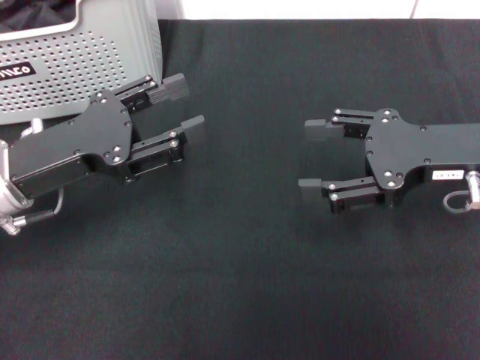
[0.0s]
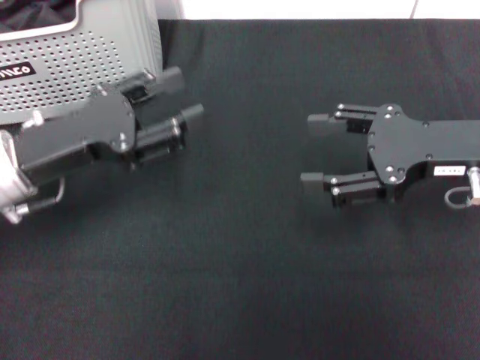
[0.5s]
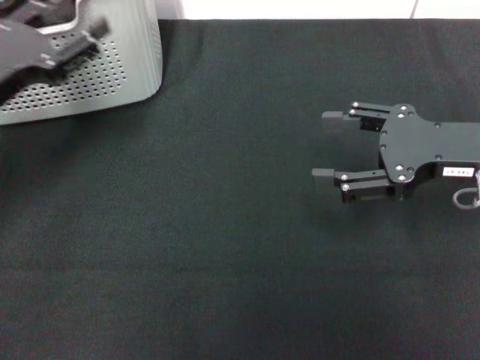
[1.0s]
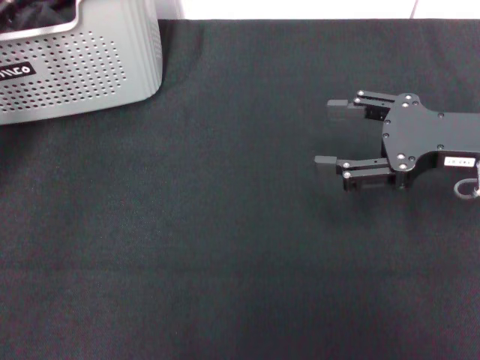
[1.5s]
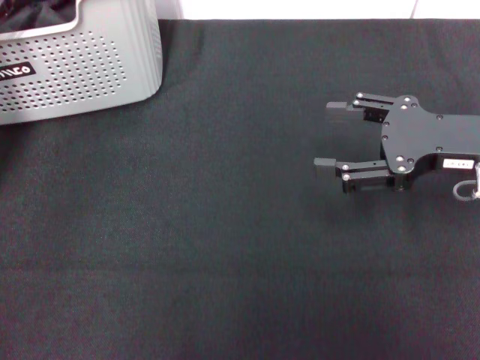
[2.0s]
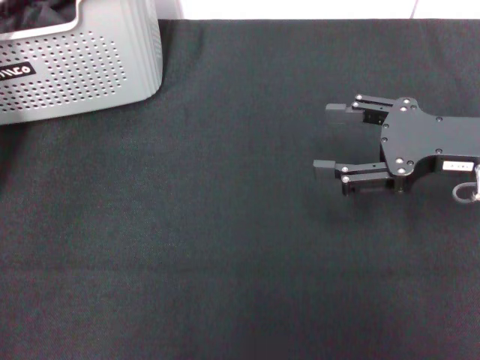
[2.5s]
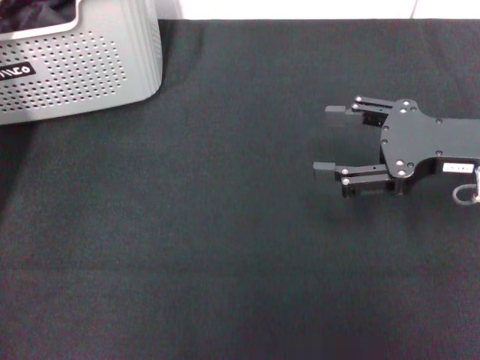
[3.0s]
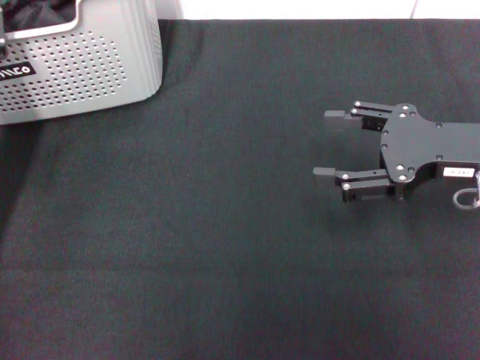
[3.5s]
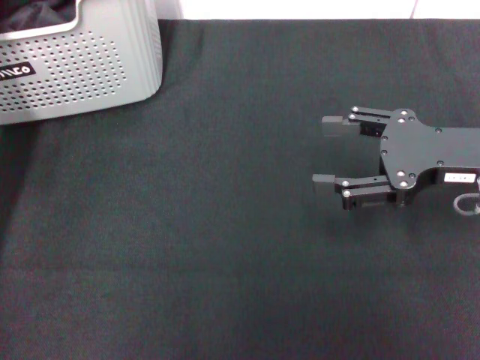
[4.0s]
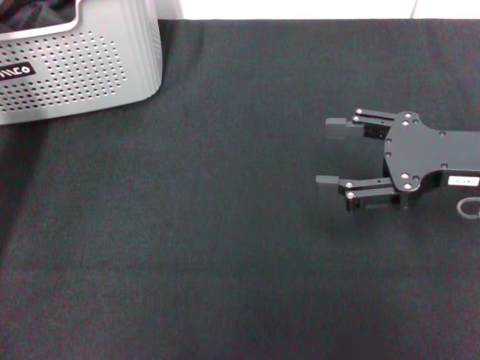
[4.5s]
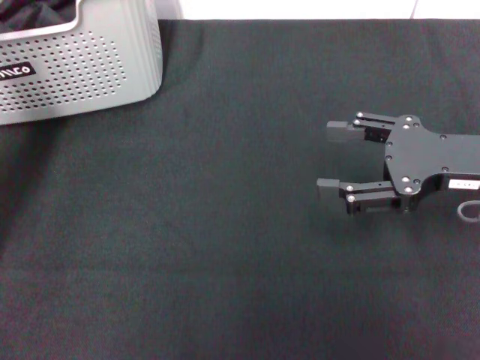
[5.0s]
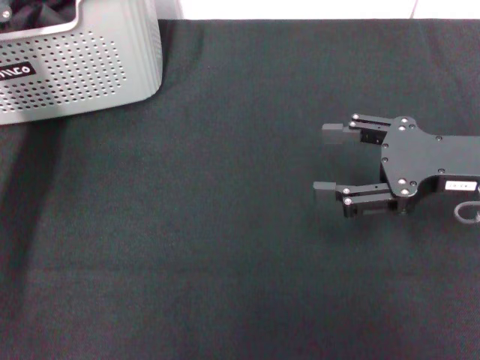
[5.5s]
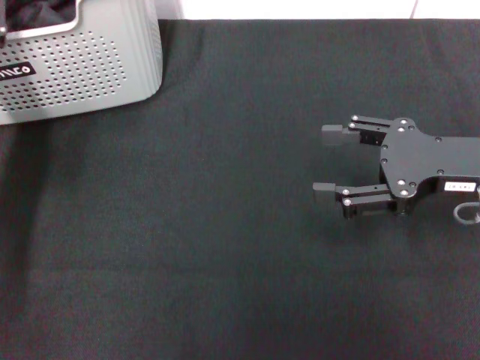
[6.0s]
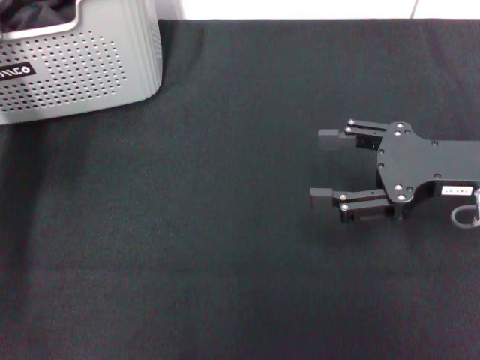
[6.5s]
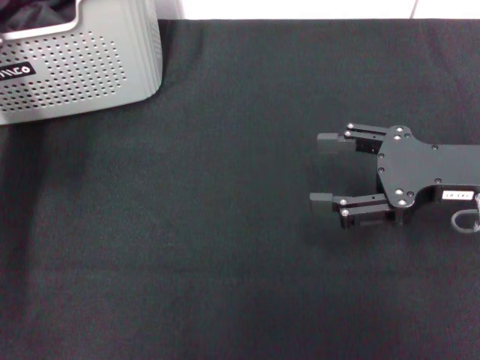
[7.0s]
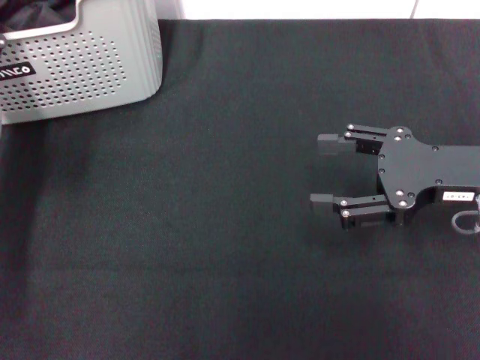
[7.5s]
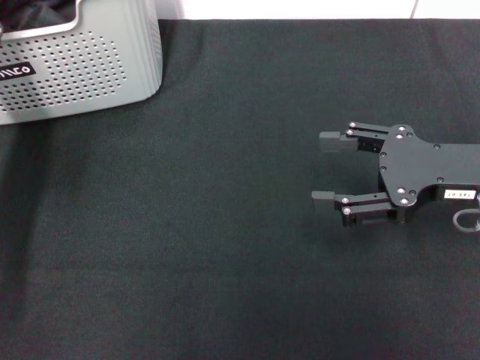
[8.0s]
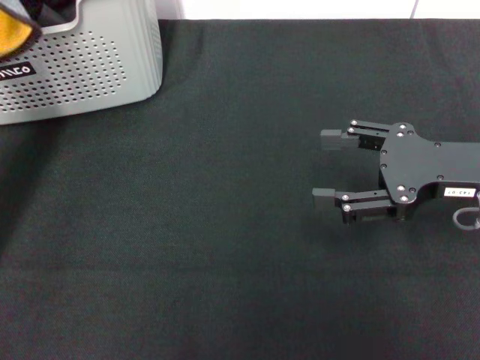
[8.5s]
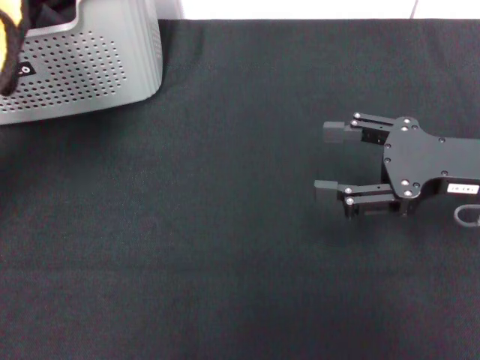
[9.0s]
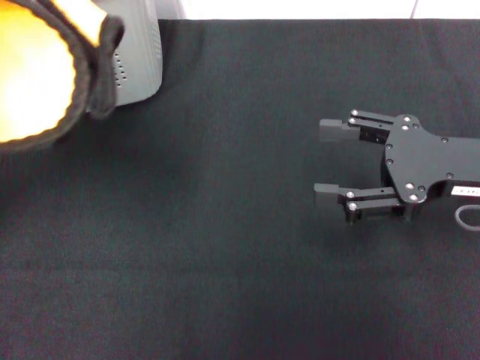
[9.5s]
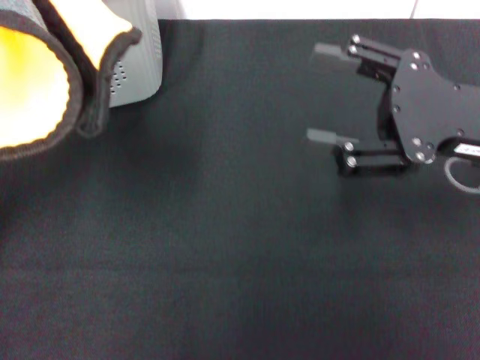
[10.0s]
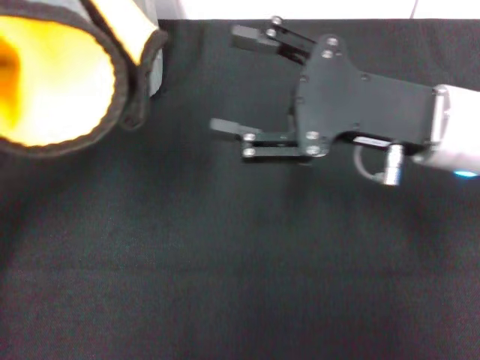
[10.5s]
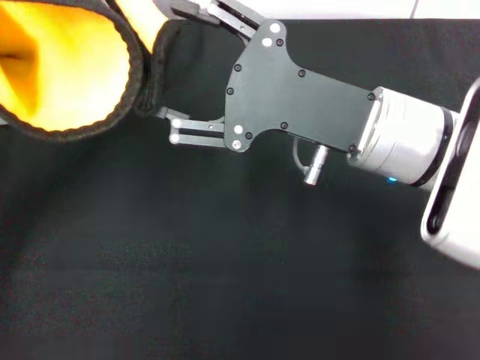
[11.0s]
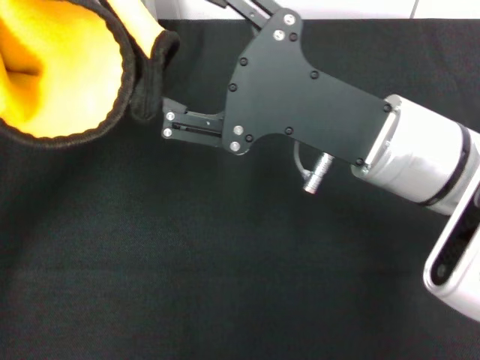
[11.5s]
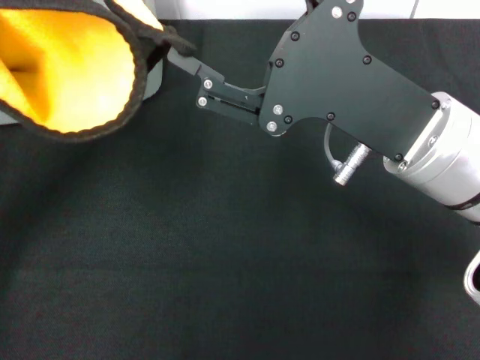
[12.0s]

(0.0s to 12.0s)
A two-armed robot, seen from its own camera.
Task of the whole recording: pick up the towel from the storage box and lay it flat on the black tablecloth.
Step, 0.0s - 7.5s: Pick up a towel with the left gripper.
0.0s - 2.0s: The left gripper heads to the left and forward, covering approximately 10 cm.
2.0s - 4.0s: The left gripper closes.
4.0s - 6.0s: The left gripper opens.
8.0s - 10.0s: The left gripper moves upward and backward, about 15 cm.
10.0s - 12.0s: The right gripper shifts approximately 10 cm to the left.

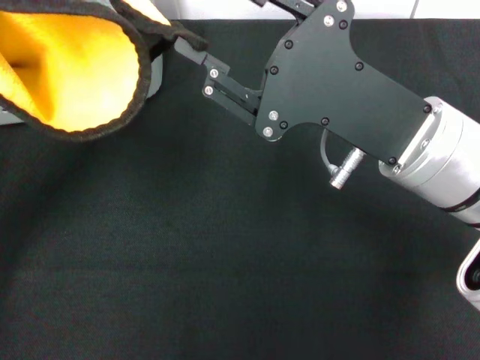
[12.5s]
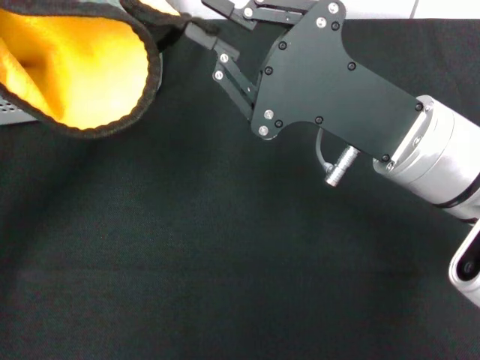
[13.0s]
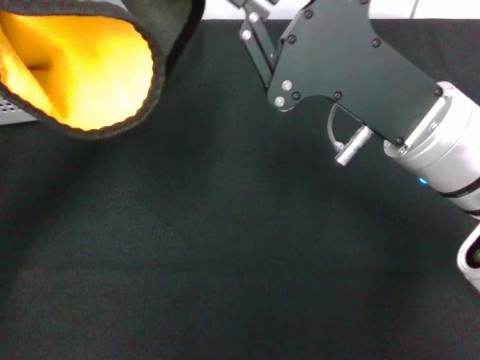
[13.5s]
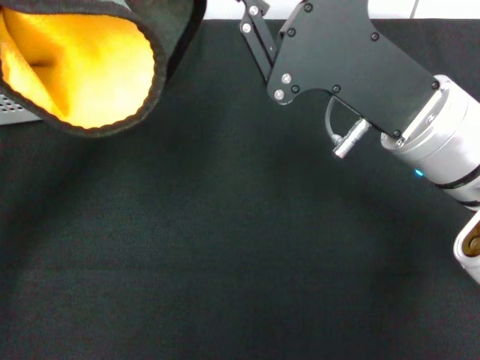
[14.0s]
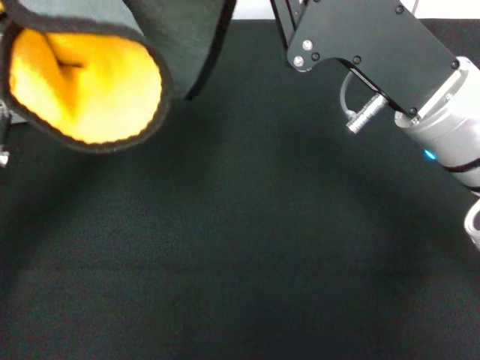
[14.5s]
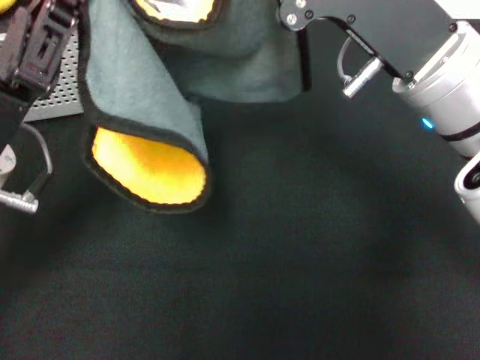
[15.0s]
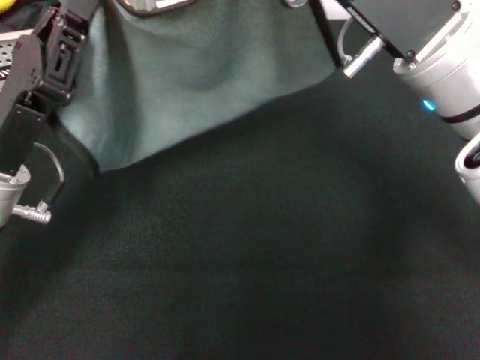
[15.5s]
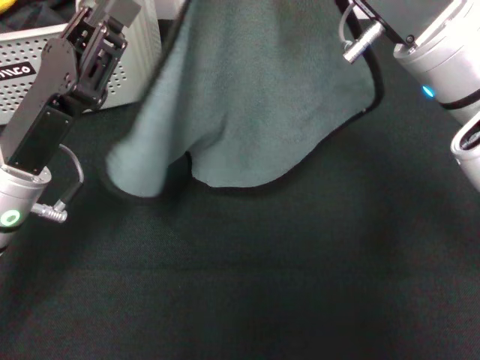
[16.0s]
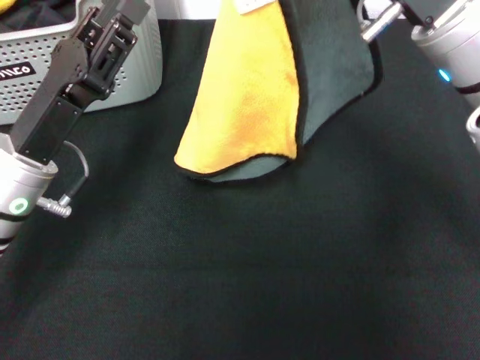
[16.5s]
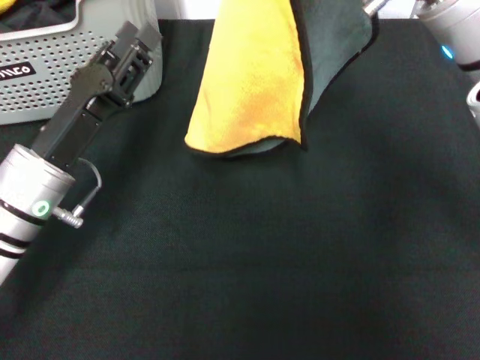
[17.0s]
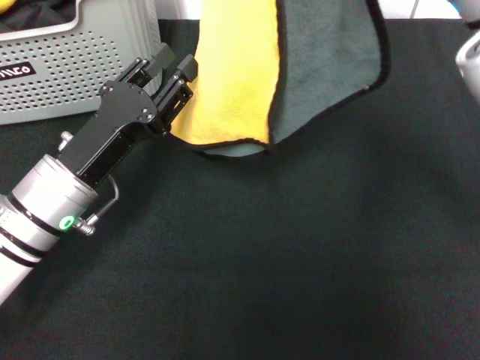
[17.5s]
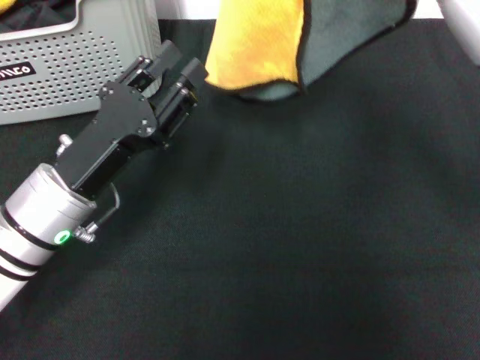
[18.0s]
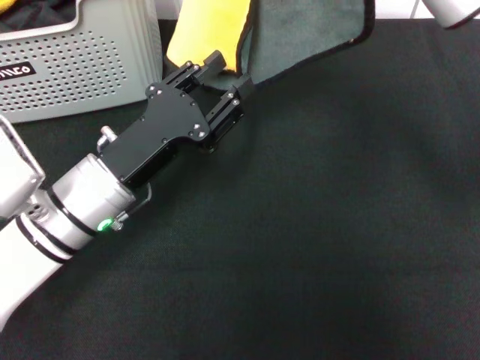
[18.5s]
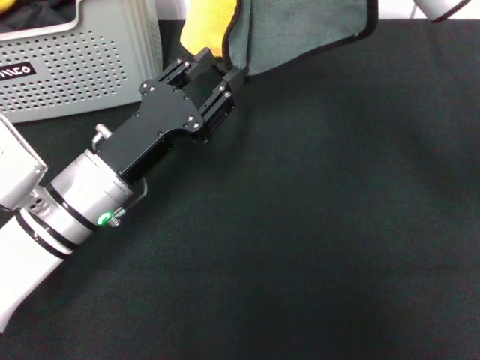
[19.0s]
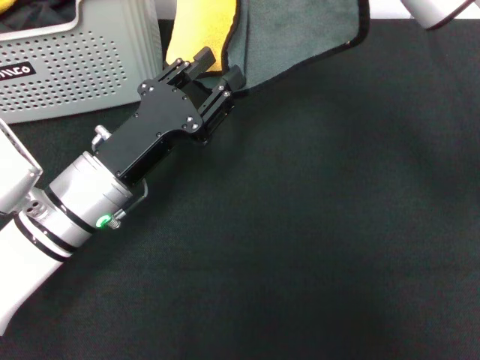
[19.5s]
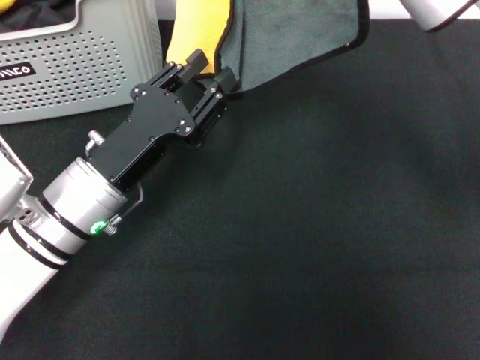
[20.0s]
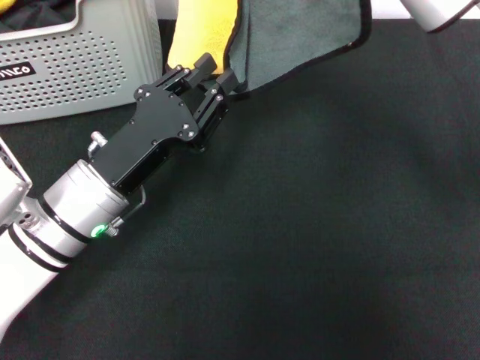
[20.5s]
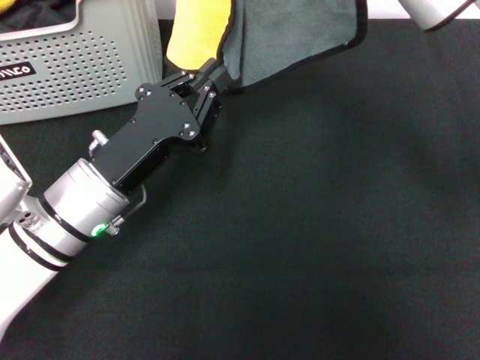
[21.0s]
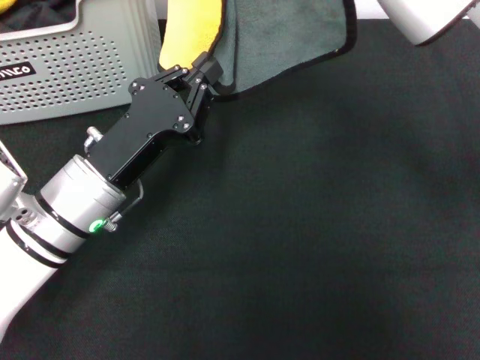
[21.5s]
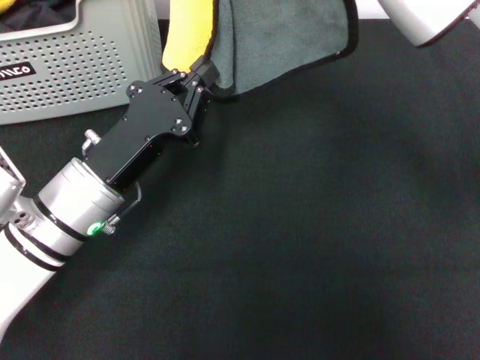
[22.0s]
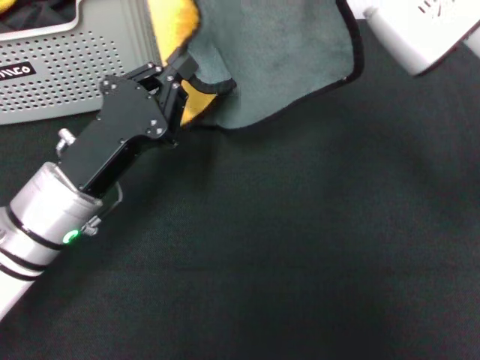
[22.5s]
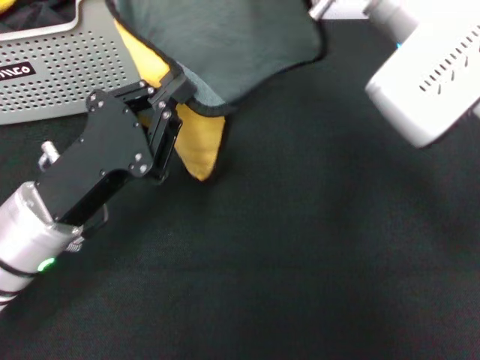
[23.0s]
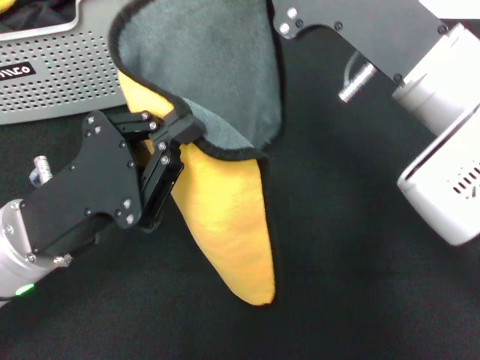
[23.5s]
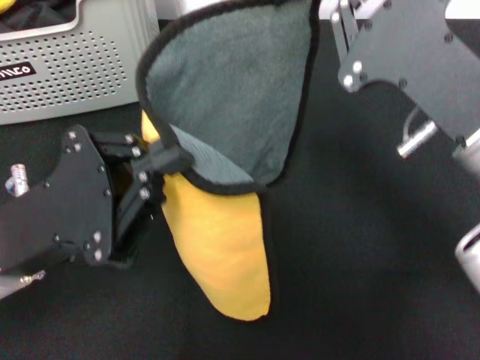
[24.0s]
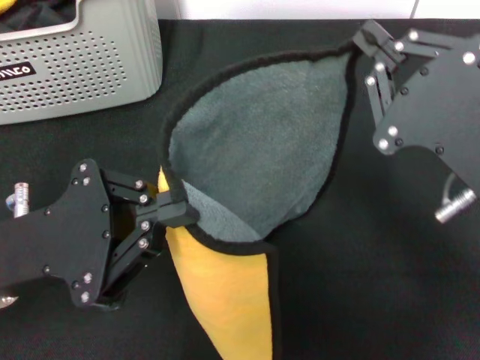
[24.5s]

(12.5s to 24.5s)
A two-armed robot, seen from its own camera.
Task of the whole recording: pick up the towel from the storage box and lay it flat on the black tablecloth.
12.5s - 14.5s: The right gripper closes.
14.5s - 16.5s: The left gripper shifts some 5 cm downward, and opens.
16.5s - 18.5s: The right gripper travels upward by some 5 cm. The left gripper shifts by approximately 5 cm.
18.5s - 20.5s: Neither gripper changes place.
20.5s - 22.5s: The left gripper closes.
22.5s - 24.5s: The right gripper travels backward, downward and to the right by approximately 20 cm; the left gripper goes roughly 5 cm backward.

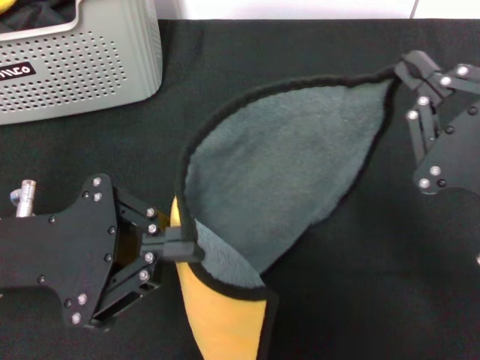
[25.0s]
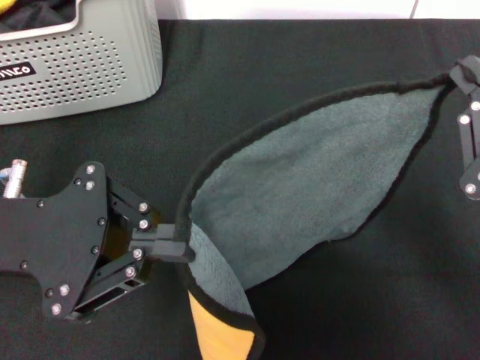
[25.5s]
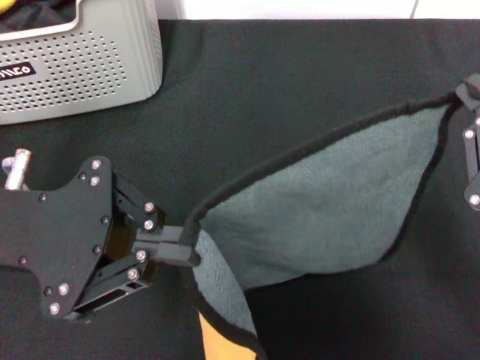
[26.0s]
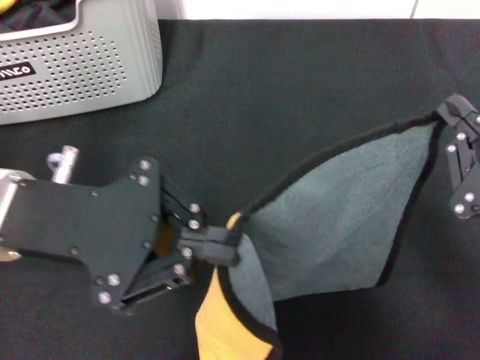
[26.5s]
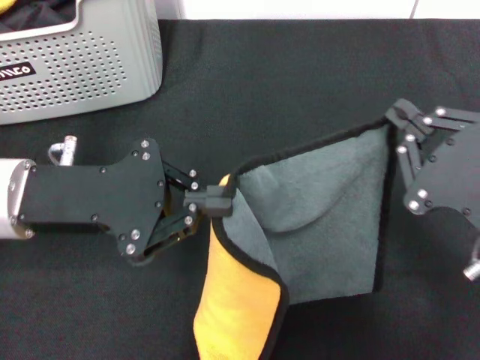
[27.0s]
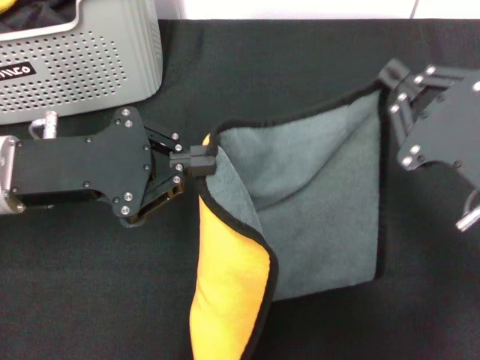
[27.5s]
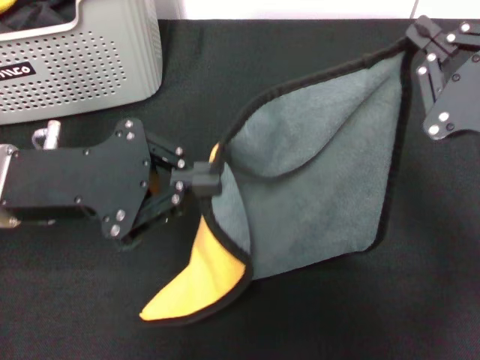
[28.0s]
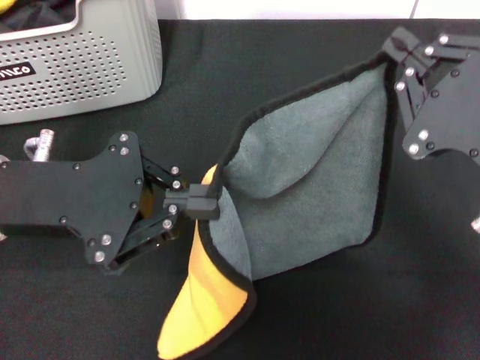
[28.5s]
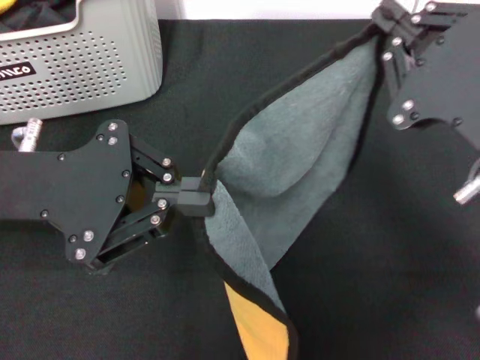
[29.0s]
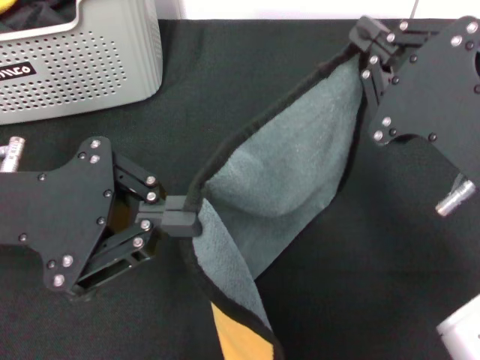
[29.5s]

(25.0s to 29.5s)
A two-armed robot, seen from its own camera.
Task of the whole recording: pick up the towel from the storage box and lay it flat on the black tablecloth.
27.0s - 29.5s: The right gripper shifts roughly 5 cm upward.
